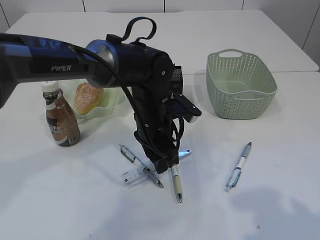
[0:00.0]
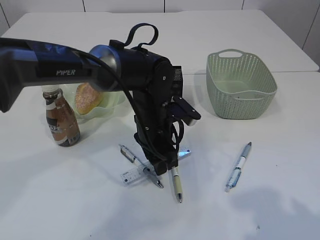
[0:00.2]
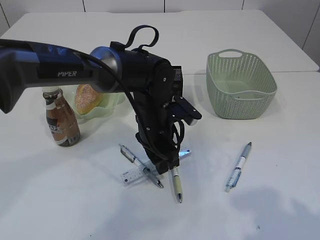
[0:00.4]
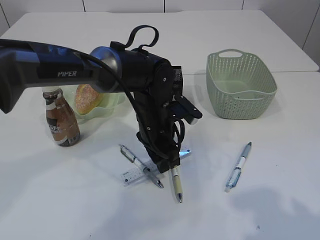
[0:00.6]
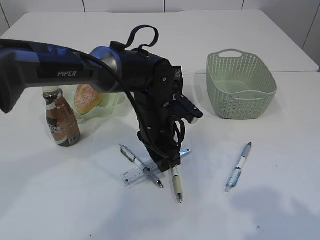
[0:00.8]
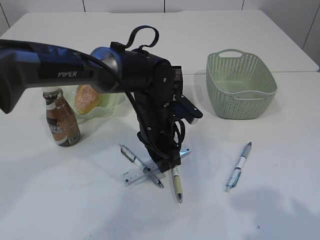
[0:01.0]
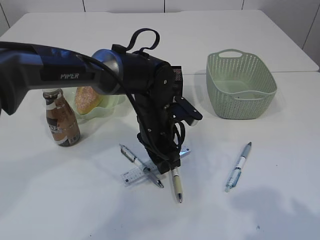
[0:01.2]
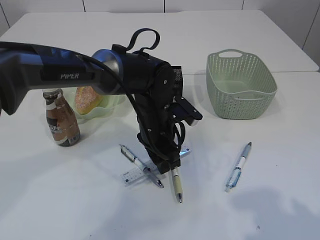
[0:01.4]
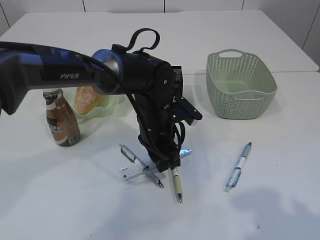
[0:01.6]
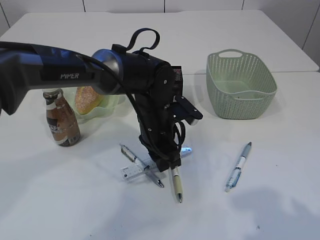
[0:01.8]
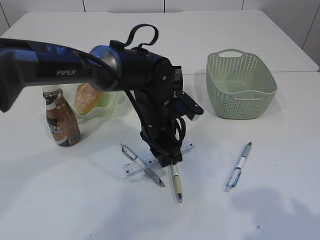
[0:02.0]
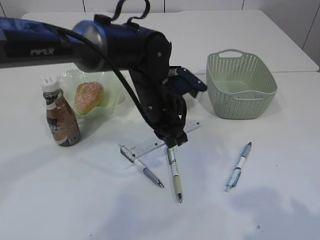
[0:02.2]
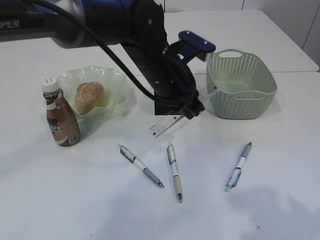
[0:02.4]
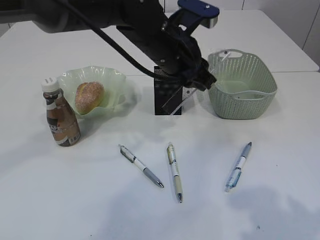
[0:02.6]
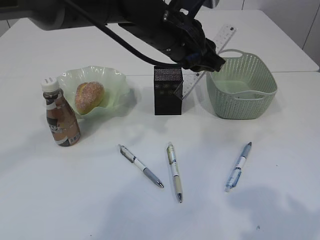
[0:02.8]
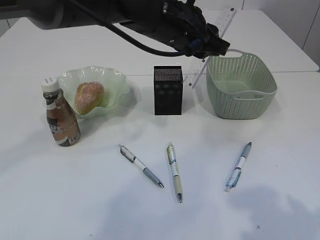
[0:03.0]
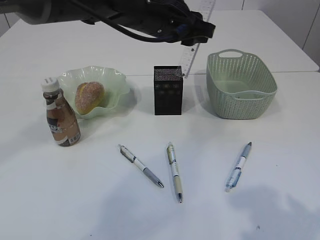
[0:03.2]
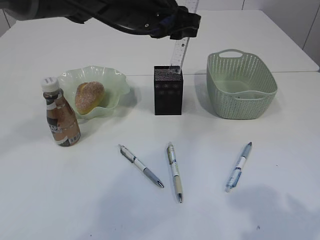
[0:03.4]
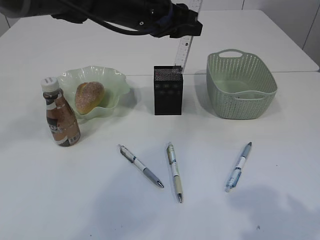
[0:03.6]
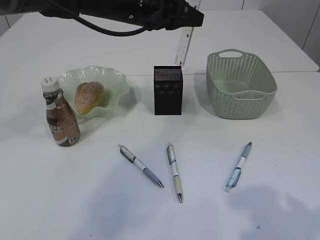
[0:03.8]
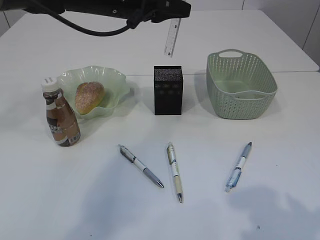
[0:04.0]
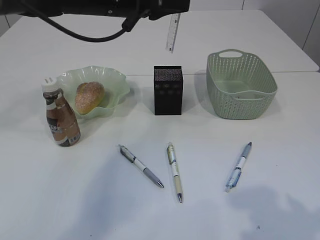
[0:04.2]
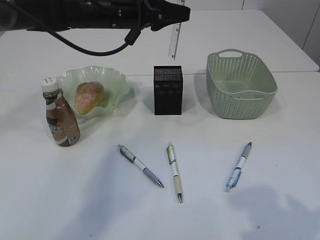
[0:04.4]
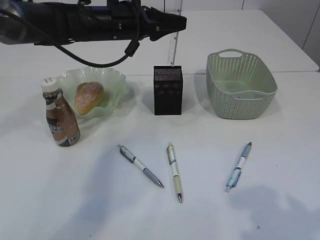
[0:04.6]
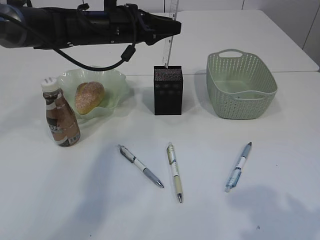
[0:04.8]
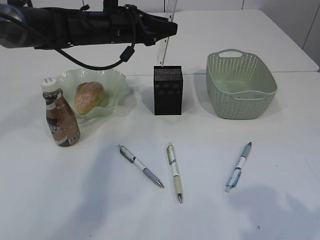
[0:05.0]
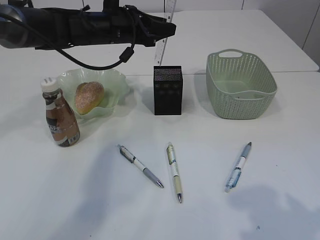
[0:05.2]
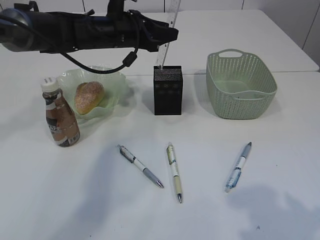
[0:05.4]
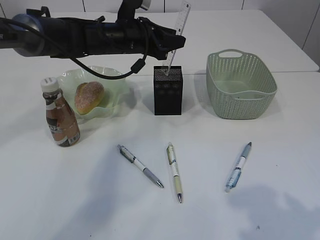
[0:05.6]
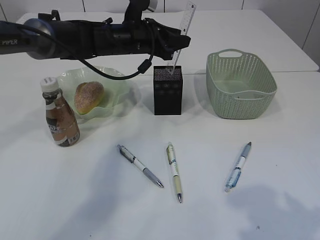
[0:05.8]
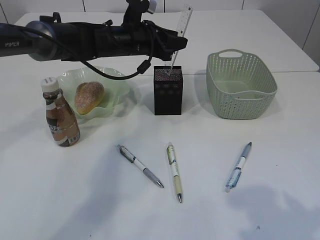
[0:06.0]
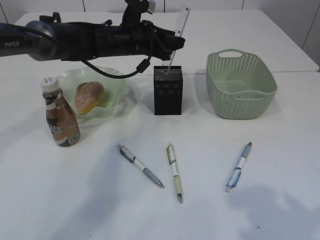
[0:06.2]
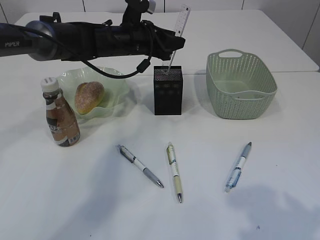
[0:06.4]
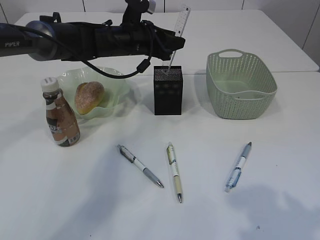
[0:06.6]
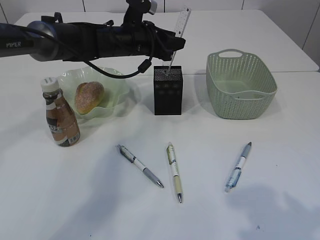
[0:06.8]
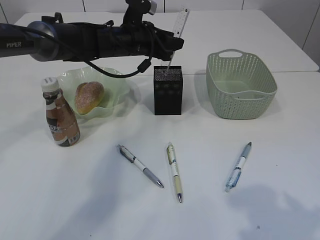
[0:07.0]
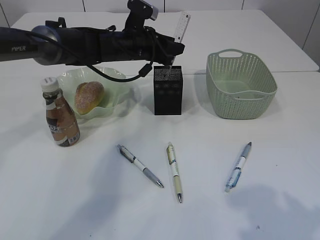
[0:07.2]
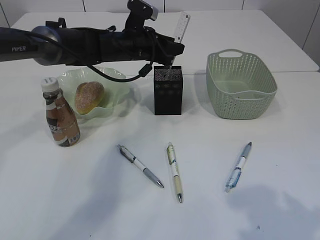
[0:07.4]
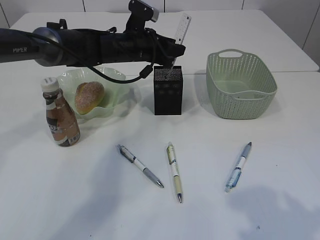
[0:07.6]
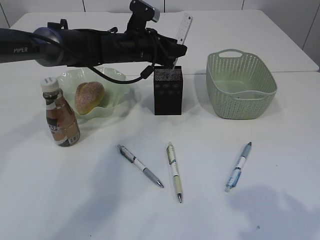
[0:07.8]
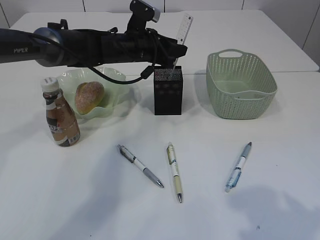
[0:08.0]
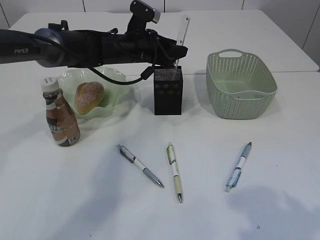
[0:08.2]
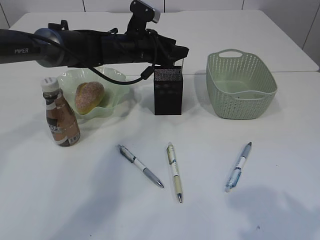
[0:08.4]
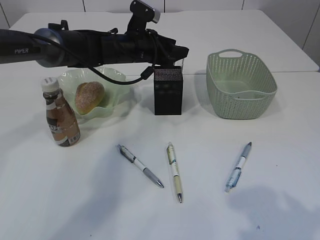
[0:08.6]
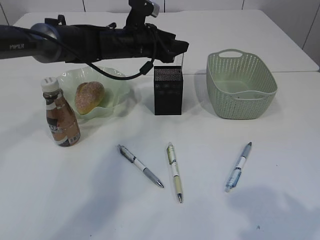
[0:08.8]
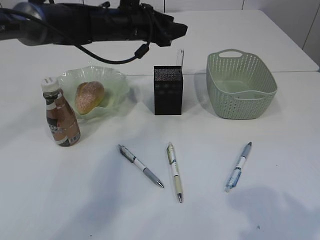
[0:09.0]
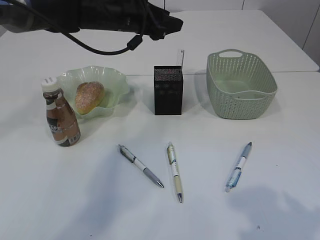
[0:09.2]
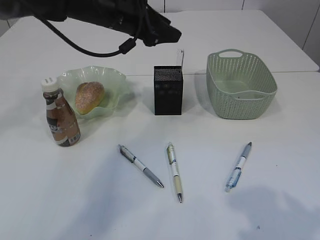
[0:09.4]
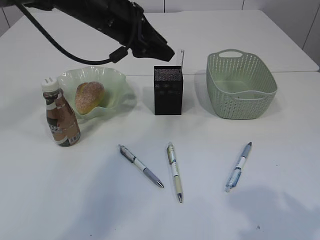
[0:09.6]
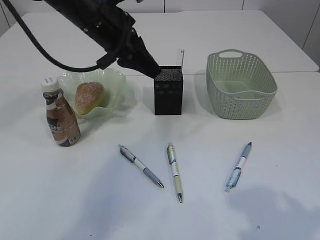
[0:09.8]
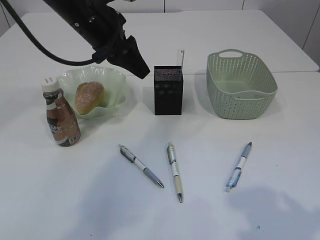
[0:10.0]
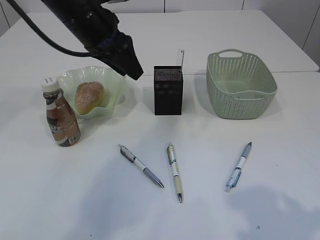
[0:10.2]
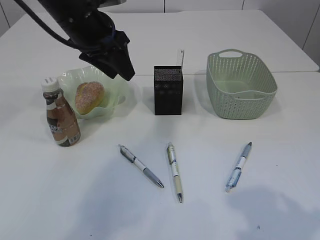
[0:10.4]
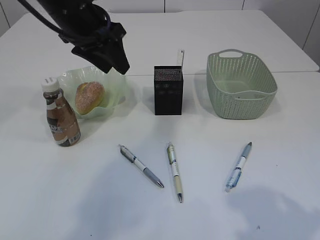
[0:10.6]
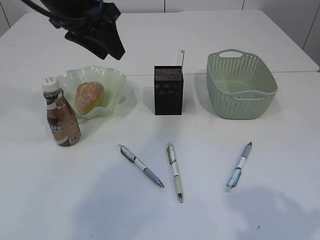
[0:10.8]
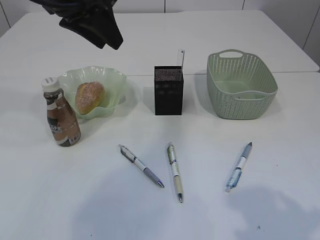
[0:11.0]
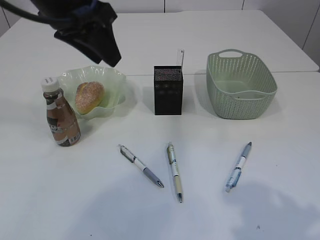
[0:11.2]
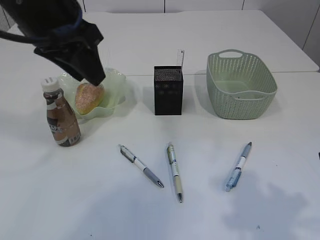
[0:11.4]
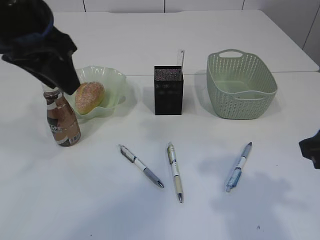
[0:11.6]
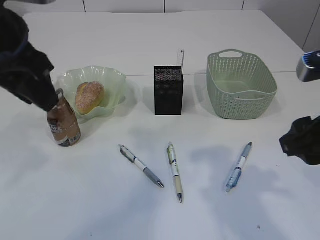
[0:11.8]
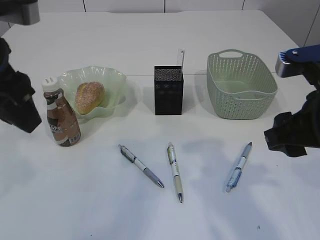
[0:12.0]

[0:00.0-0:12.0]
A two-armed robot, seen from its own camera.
Step, 0:00.0 to 0:02.2: pick up the ruler.
Step, 0:02.4 to 0:09.2: Place the ruler into the pen holder.
0:00.0 to 0:01.6: The grippers stay close to where they were, moving slightly.
0:01.6 to 0:03.0: The left gripper travels upward by roughly 15 cm.
0:03.0 to 0:04.4: The left gripper goes approximately 10 cm to the left and forward.
0:04.4 to 0:06.0: The left gripper travels downward by about 5 cm.
0:06.0 to 0:07.6: There are only small adjustments of the grippers.
0:07.6 to 0:09.0: The left gripper is displaced upward by approximately 5 cm, and opens.
0:09.0 to 0:10.4: The left gripper goes about 10 cm backward, to the left and upward.
0:10.4 to 0:12.0: The left gripper is displaced backward by approximately 15 cm; the right gripper travels forward and to the left by roughly 15 cm.

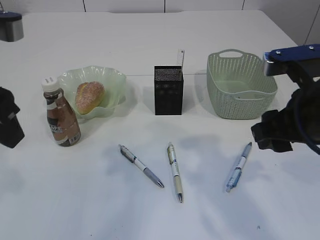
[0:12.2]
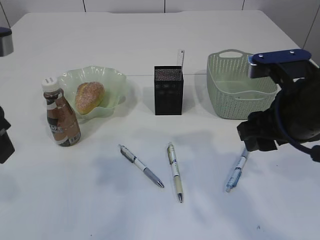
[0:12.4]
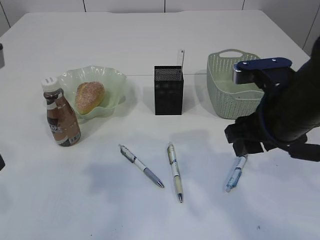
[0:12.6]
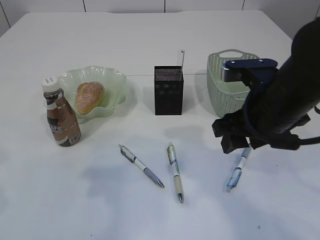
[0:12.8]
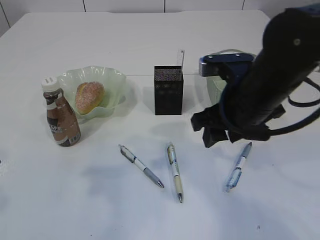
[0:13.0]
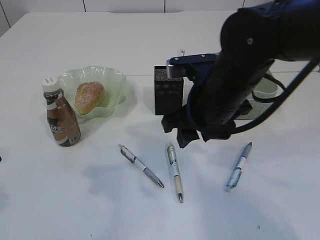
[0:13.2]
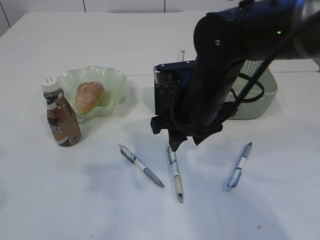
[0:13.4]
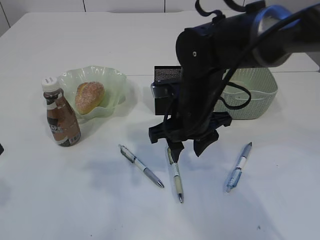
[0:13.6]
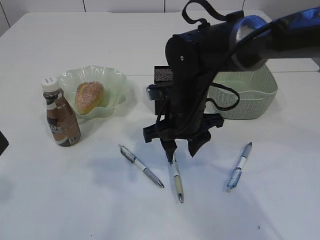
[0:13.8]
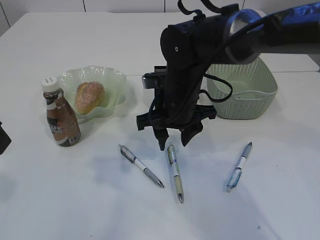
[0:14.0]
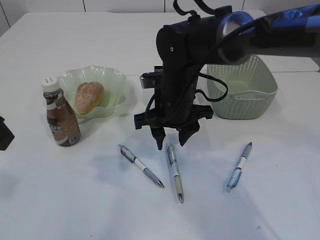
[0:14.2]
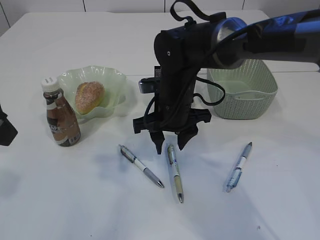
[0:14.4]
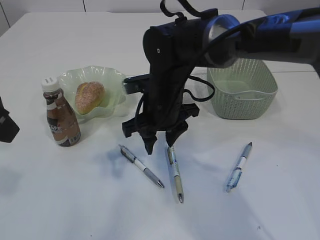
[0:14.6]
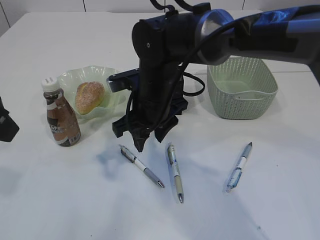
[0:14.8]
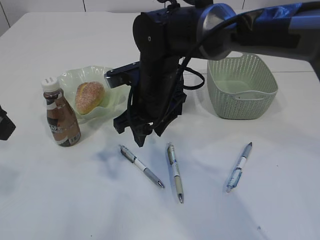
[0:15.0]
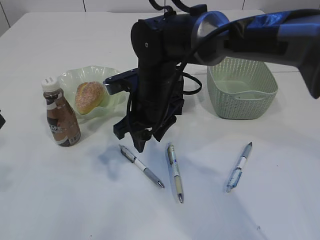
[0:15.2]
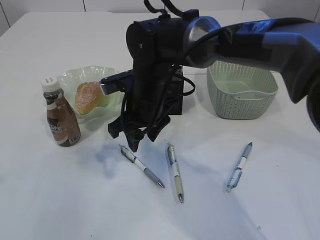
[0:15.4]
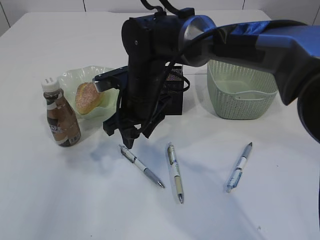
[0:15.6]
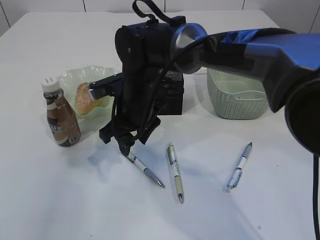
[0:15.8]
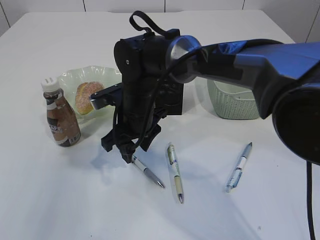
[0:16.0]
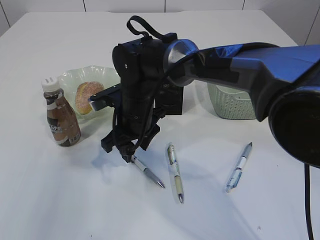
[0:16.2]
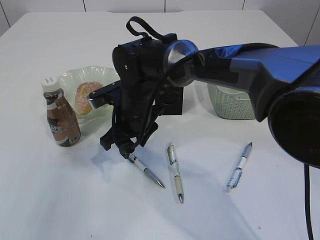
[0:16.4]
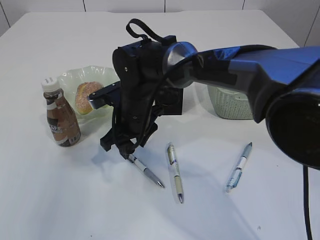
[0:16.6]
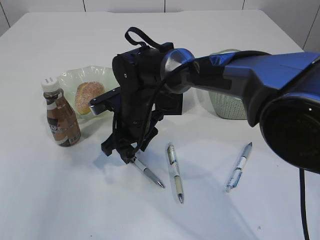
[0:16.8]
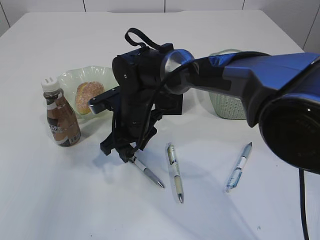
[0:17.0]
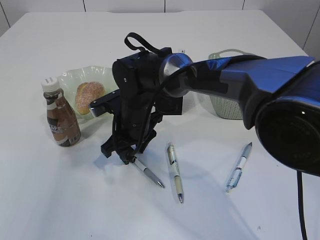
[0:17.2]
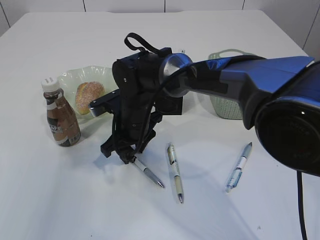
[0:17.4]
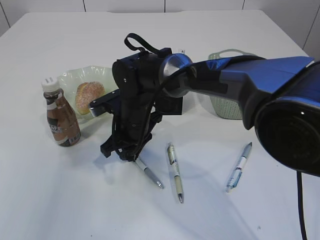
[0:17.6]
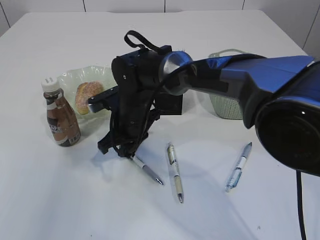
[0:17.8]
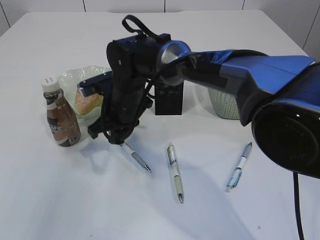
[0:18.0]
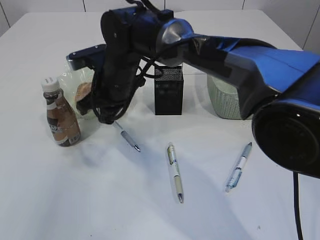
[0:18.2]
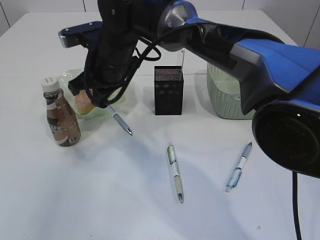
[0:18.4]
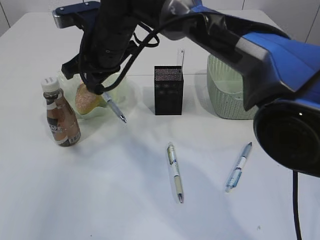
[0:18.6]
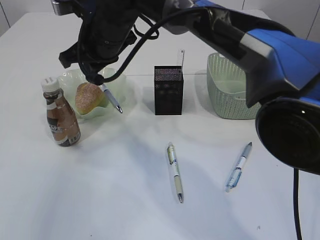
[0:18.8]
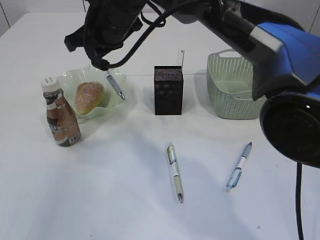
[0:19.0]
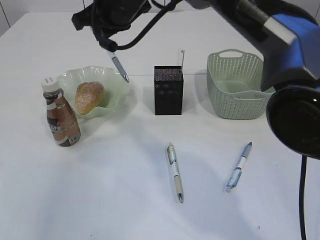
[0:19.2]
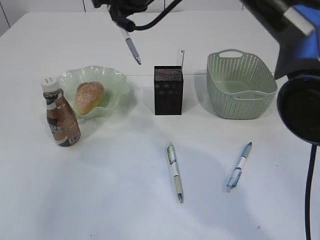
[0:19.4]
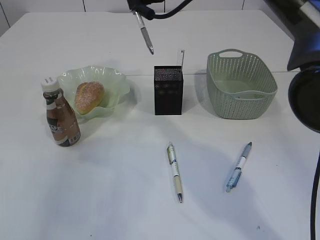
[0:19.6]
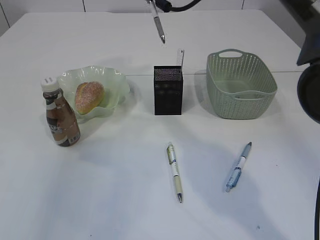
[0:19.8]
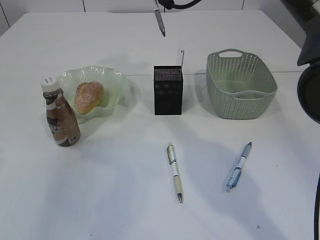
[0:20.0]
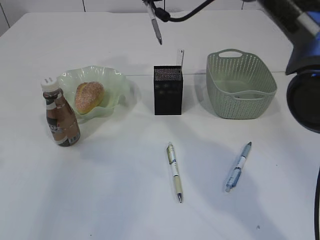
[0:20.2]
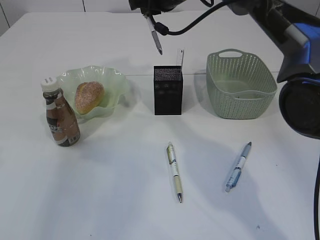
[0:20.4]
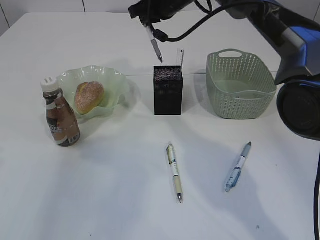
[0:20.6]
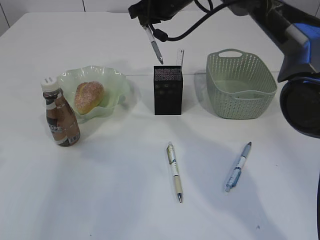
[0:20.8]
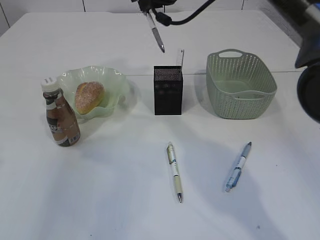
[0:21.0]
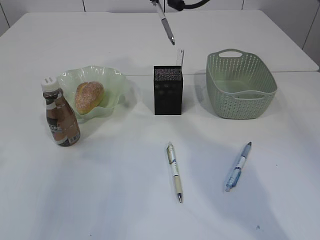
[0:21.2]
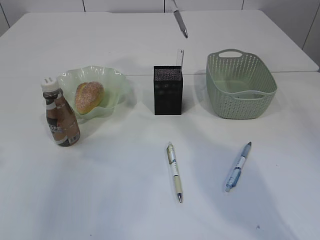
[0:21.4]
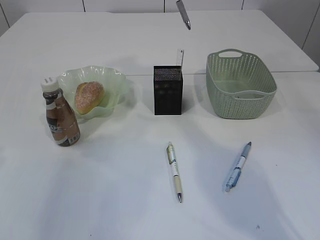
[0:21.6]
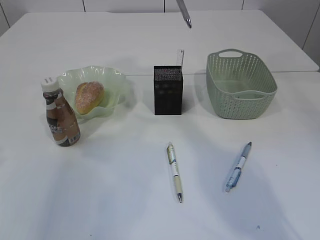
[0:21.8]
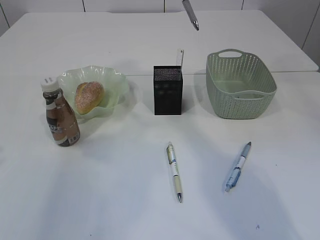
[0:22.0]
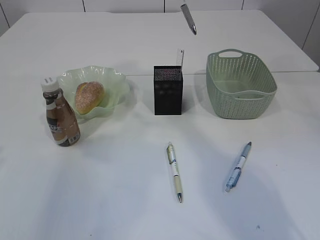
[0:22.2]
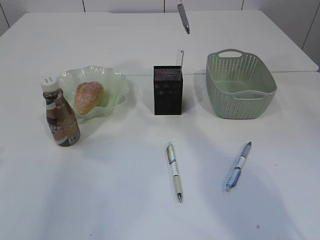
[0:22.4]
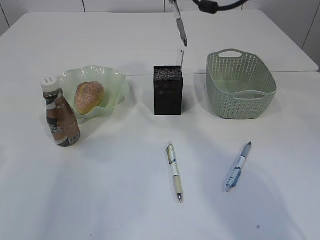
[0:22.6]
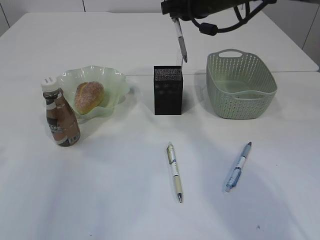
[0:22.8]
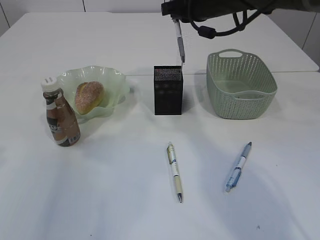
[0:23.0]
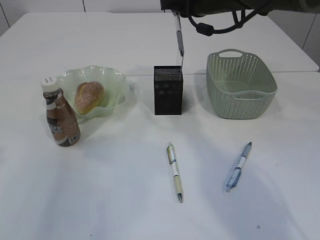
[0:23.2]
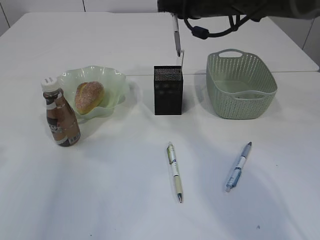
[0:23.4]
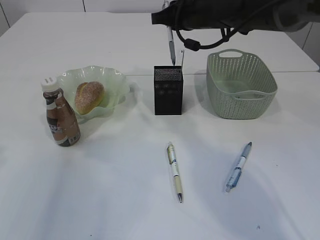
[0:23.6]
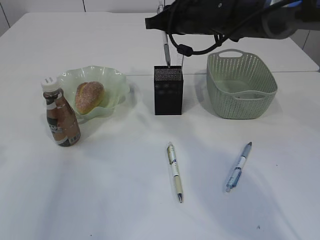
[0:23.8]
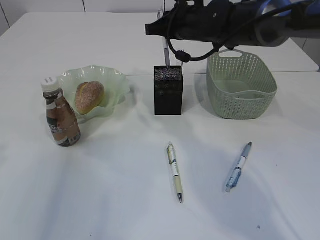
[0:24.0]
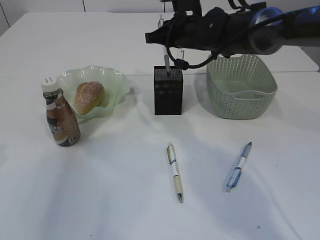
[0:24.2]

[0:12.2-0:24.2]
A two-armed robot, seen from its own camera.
Step, 0:12.2 to 0:18.0: Pick up the pen with right arm.
0:12.2 to 0:13.8: The right gripper heads to the left, forward and downward, covering about 20 cm.
0:13.8 to 0:15.2: The right gripper moves to the left, roughly 5 cm.
0:15.2 to 0:16.6: The right gripper ends up some 5 cm from where it was.
0:16.6 to 0:18.2: The right gripper heads upward, covering roughly 5 cm, and closes its fingers.
0:18.2 to 0:19.8: The right gripper moves upward, to the right and forward, about 20 cm.
0:19.8 to 0:21.2: The grippers make only small movements.
0:22.6 to 0:24.2: The right gripper is displaced downward by approximately 10 cm.
